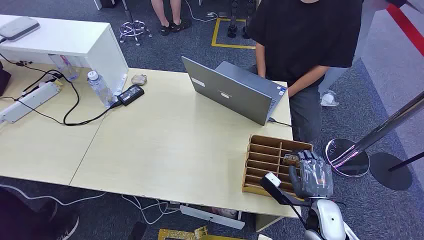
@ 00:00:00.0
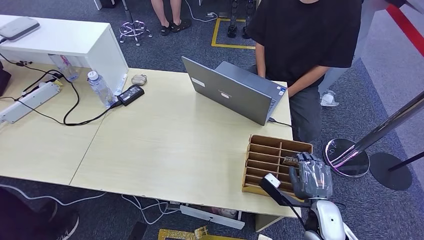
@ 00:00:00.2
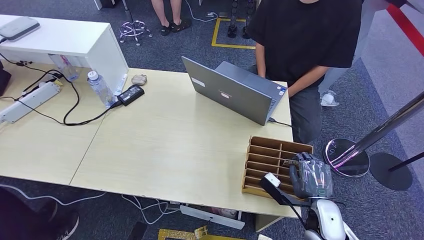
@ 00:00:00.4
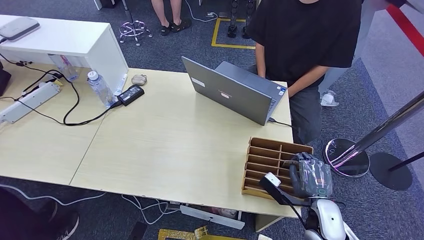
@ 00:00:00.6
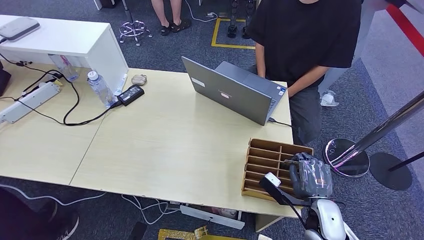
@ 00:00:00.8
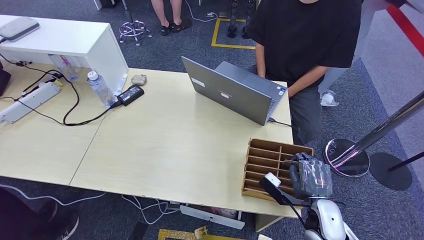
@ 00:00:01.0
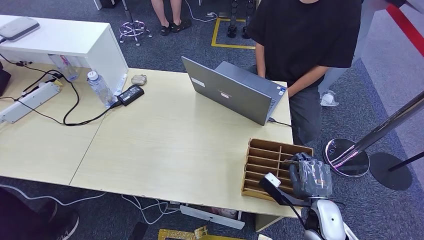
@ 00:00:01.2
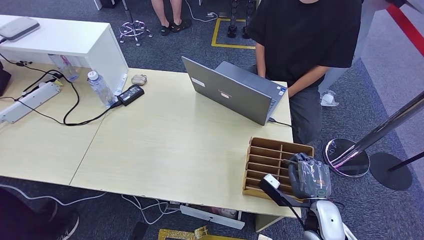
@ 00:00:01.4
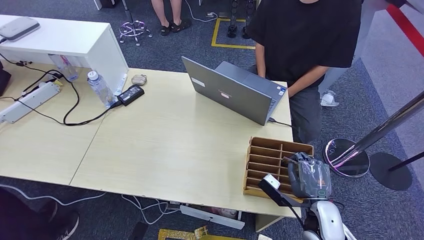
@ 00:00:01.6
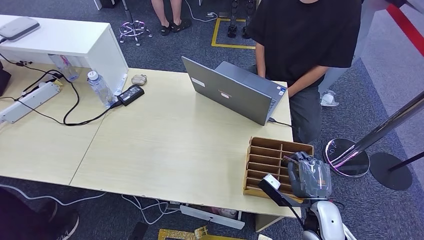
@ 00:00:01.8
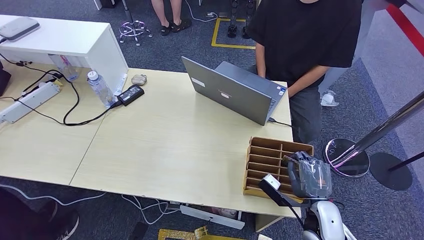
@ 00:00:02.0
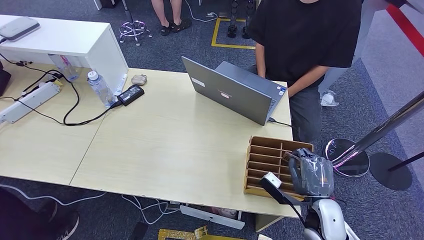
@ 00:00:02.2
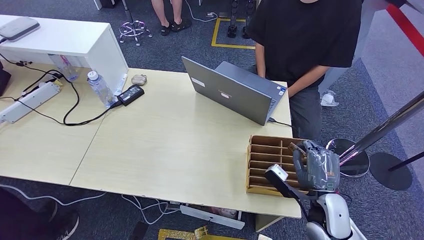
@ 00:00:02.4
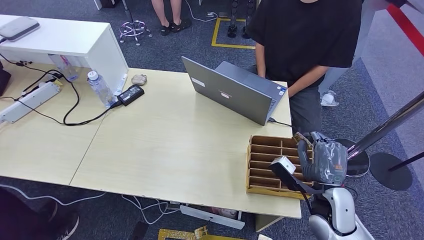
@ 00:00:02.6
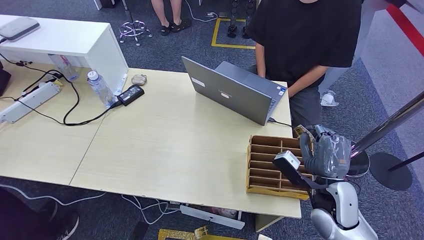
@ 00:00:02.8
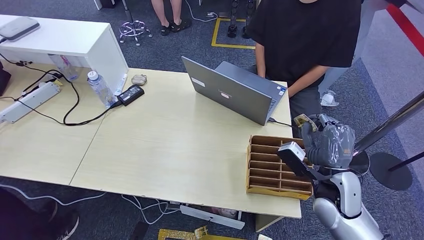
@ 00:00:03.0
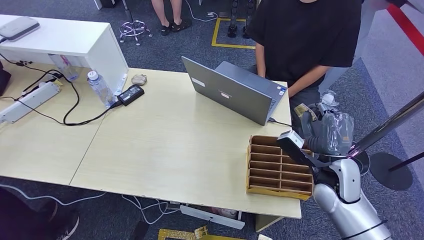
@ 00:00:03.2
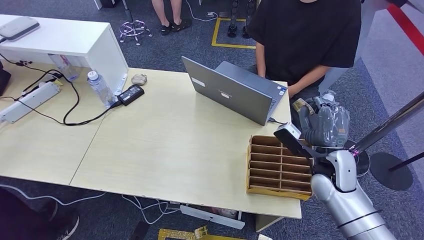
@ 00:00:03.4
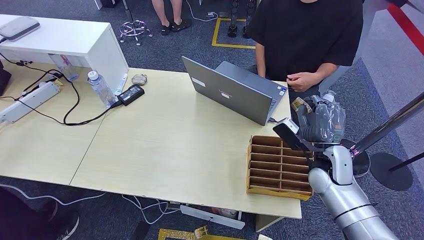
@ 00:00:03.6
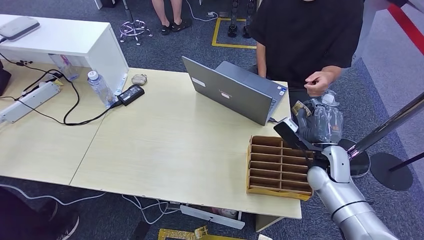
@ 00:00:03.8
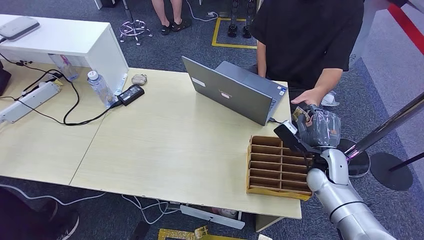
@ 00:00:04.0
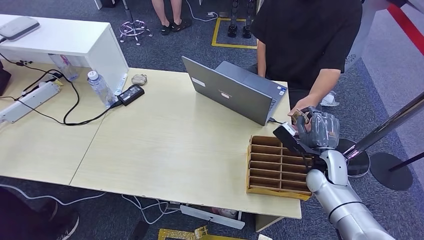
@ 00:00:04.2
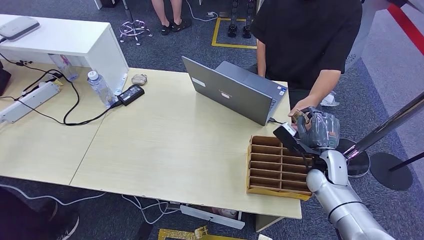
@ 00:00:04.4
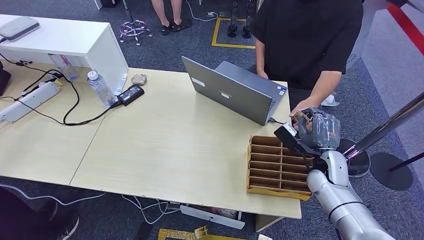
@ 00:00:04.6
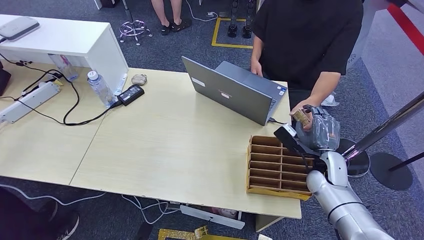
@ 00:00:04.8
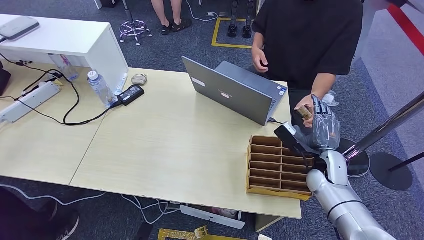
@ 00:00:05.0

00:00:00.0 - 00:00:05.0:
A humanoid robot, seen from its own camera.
Step, 00:00:00.0 - 00:00:03.2: Pick up the room card from the card holder.
Step, 00:00:03.4 - 00:00:05.0: Hand the room card to the target.
00:00:01.6 - 00:00:03.4: The right hand heads forward and upward, covering approximately 15 cm.
00:00:03.4 - 00:00:05.0: The hands move only a little.
